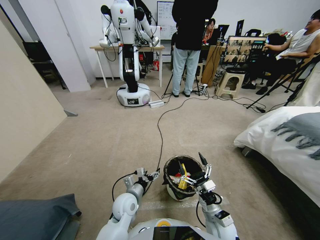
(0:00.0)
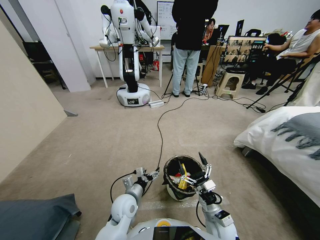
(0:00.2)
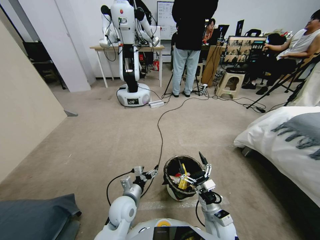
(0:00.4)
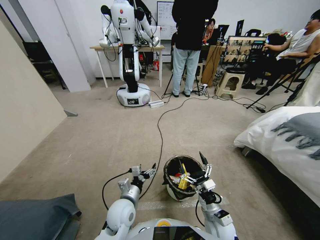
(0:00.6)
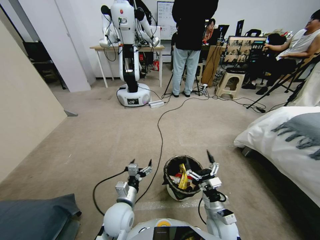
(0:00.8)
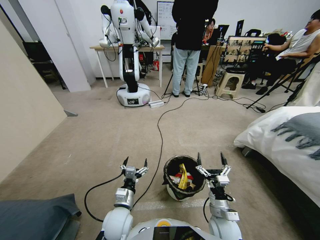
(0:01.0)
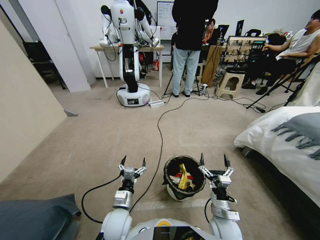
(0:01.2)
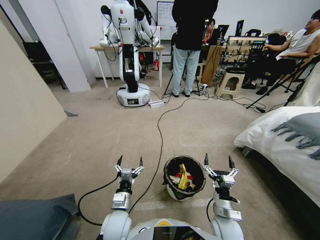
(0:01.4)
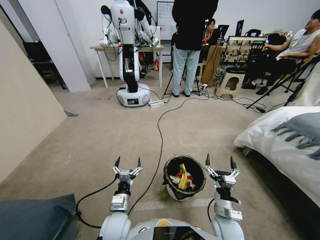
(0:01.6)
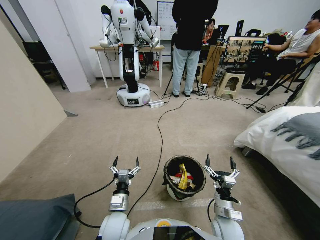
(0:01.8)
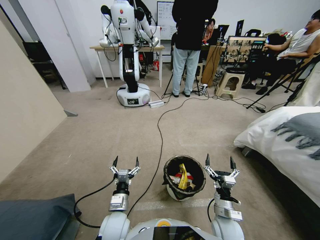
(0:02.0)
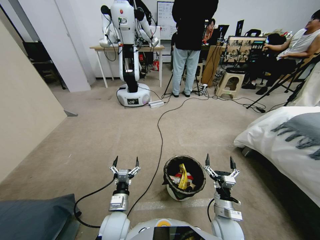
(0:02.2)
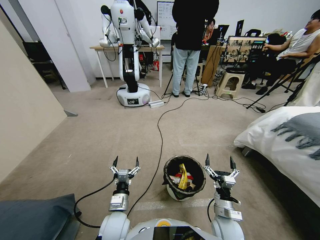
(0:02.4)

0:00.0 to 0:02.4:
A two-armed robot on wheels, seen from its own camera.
Task of the whole recording: Pick up the trash bin, then pick up the garbage from the floor and place it into the trash bin.
0:00.0 to 0:01.2: The left gripper travels backward by about 5 cm.
0:01.2 to 0:02.4: The two grippers keep their place.
